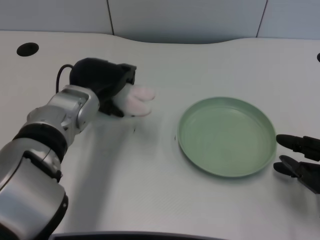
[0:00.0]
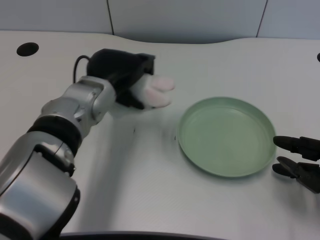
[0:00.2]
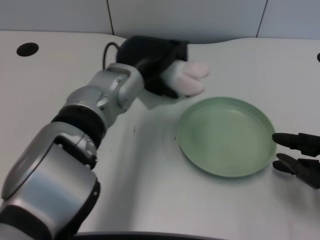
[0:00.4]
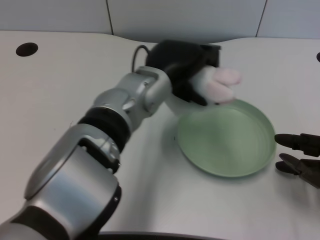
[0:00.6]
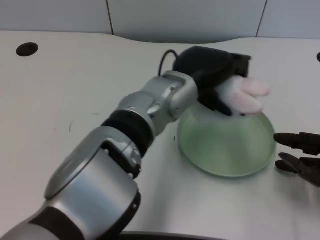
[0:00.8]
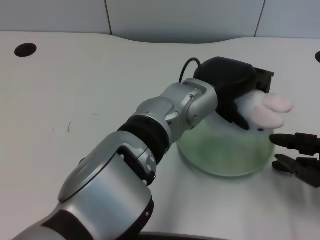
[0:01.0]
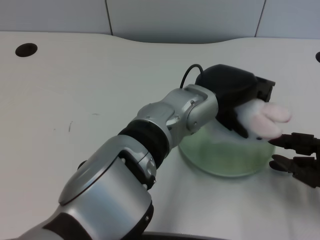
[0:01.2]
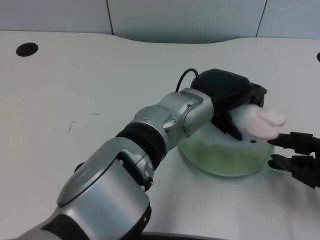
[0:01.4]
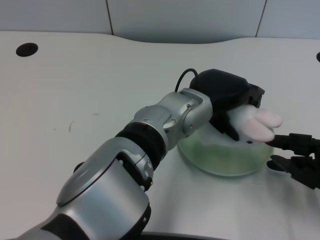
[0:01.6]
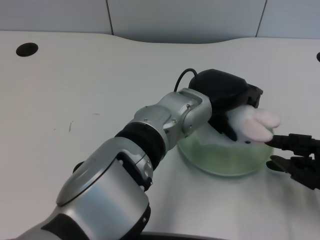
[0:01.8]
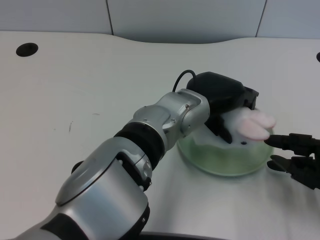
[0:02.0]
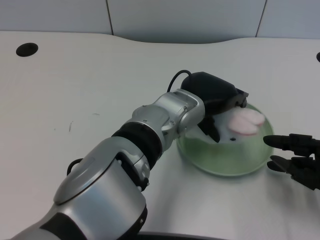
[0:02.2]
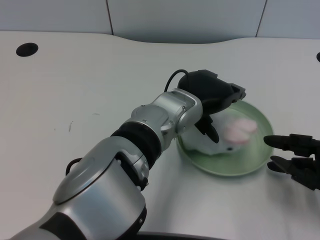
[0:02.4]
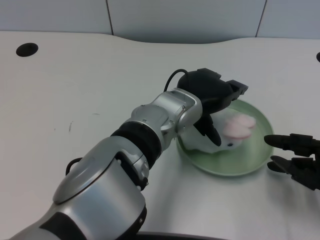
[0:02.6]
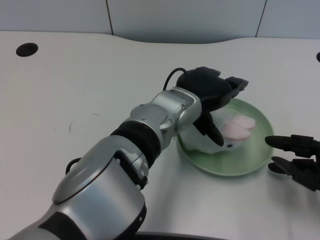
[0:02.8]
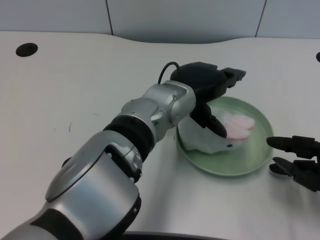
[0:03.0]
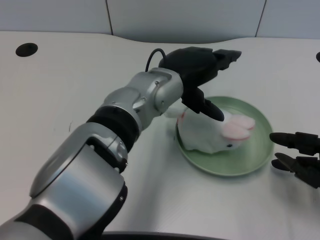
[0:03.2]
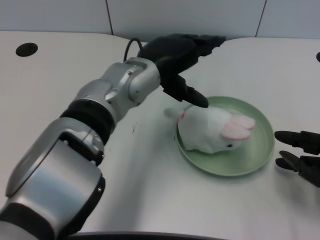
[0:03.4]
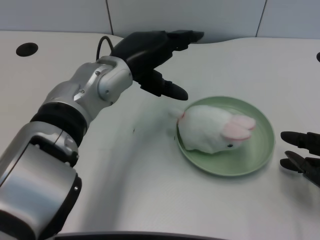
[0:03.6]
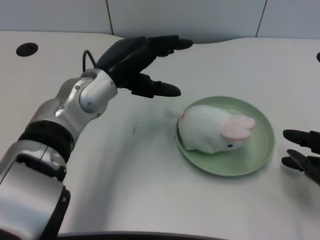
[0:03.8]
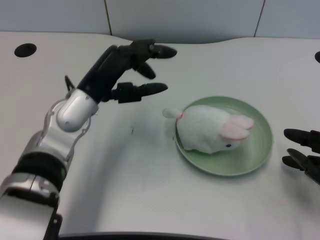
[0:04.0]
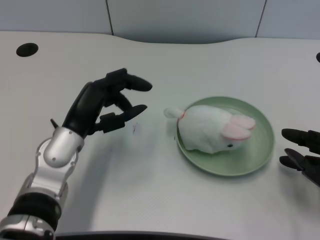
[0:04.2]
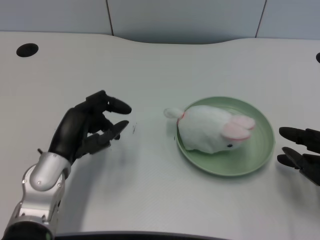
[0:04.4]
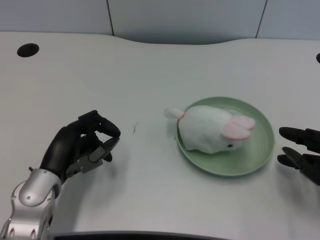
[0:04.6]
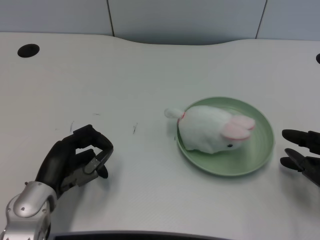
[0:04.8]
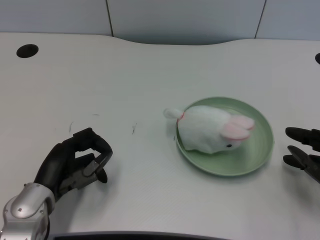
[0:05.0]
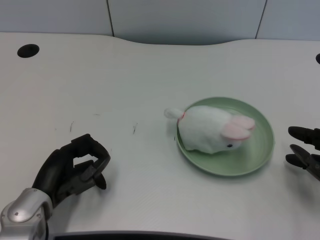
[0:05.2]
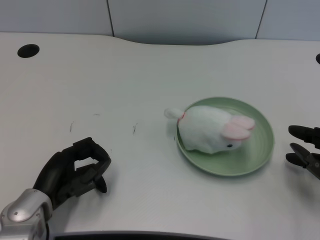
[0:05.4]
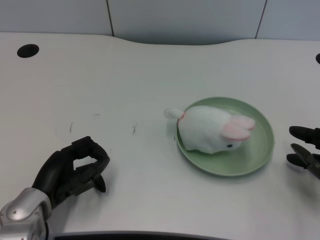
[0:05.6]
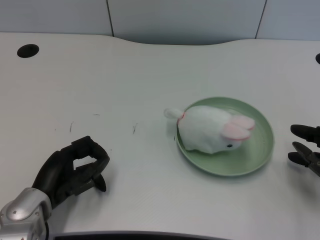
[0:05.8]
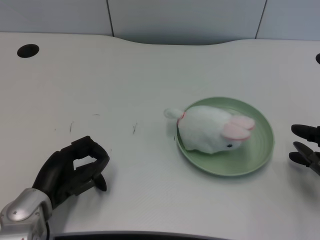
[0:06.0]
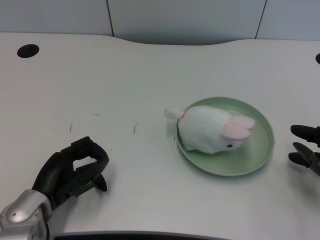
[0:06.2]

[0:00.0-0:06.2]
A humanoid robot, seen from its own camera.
Task of the whole recording: pick up the rabbit doll from the table and place it on the plate.
Step, 0:00.0 to 0:02.6: Place the rabbit doll into the plate with the left gripper.
0:00.0 to 0:01.6: The left hand heads to the right, covering approximately 15 cm.
0:01.6 to 0:03.2: The left hand changes place by some 5 cm.
0:03.2 to 0:04.6: The left hand is displaced to the left, downward and backward by some 25 cm.
0:04.6 to 0:06.2: The hands move only a little.

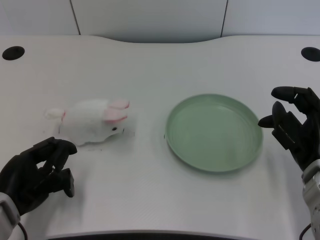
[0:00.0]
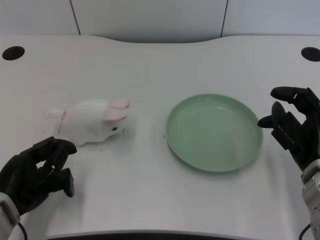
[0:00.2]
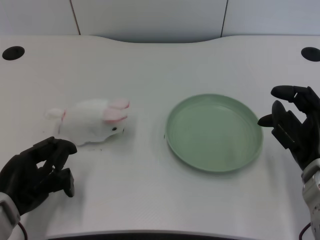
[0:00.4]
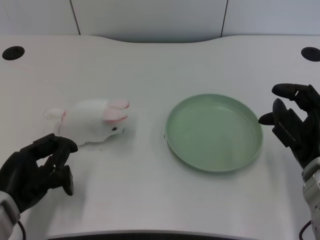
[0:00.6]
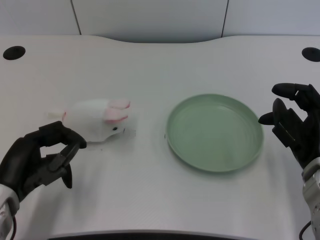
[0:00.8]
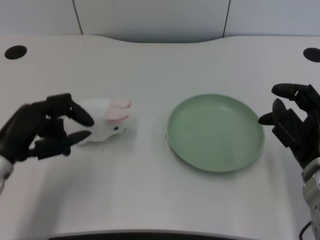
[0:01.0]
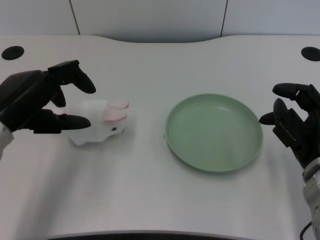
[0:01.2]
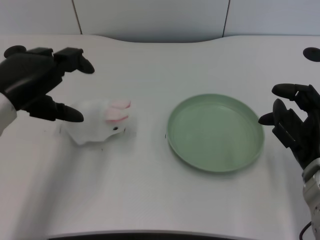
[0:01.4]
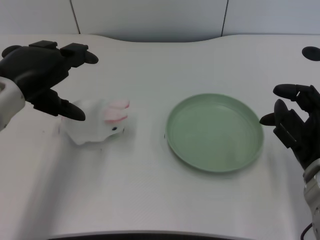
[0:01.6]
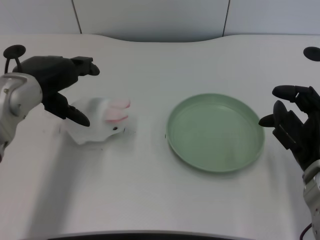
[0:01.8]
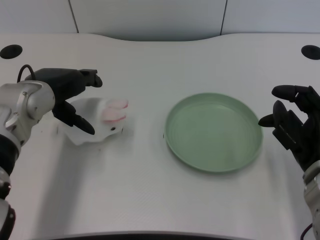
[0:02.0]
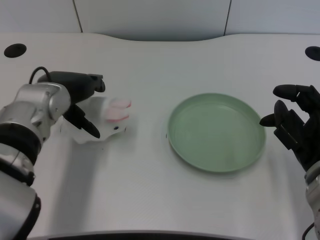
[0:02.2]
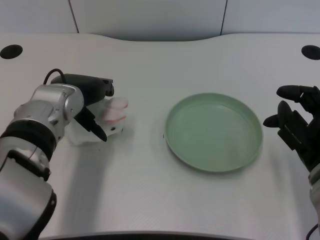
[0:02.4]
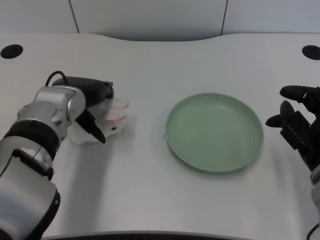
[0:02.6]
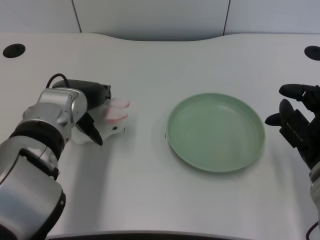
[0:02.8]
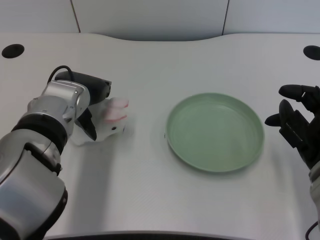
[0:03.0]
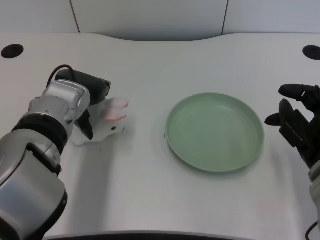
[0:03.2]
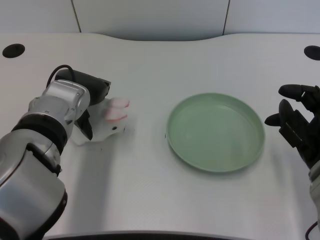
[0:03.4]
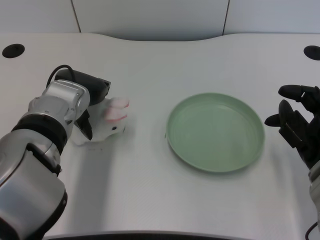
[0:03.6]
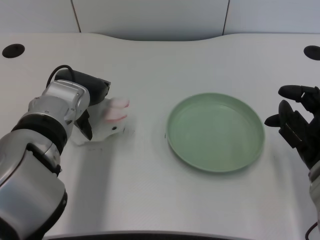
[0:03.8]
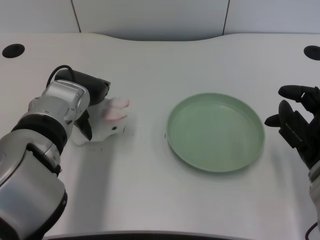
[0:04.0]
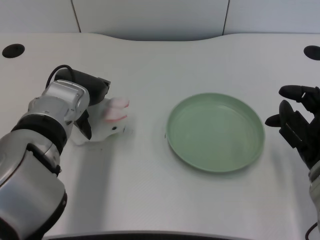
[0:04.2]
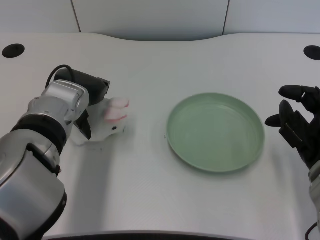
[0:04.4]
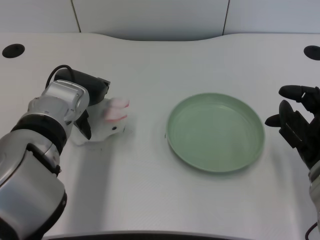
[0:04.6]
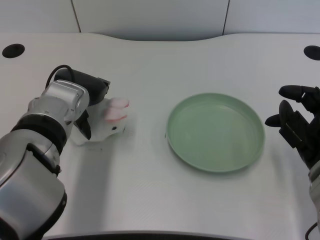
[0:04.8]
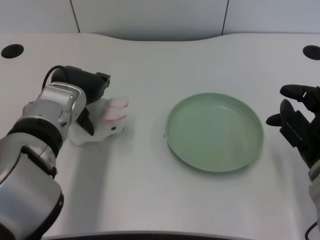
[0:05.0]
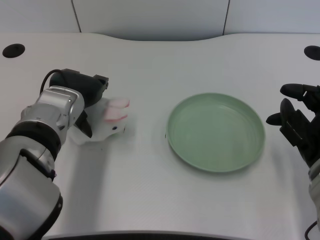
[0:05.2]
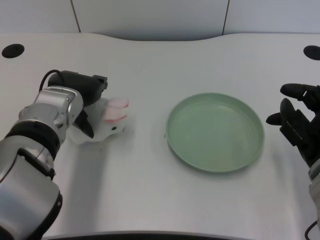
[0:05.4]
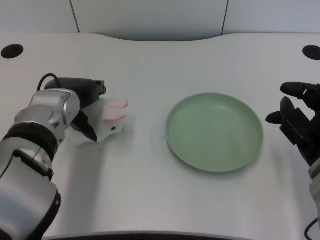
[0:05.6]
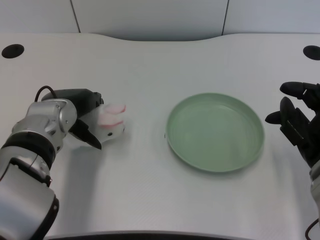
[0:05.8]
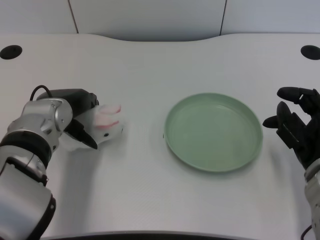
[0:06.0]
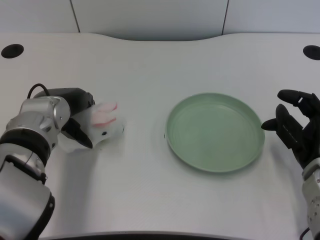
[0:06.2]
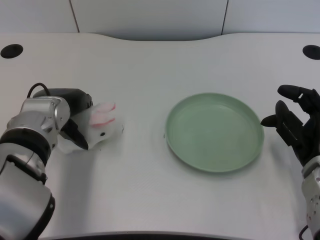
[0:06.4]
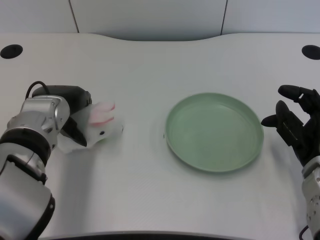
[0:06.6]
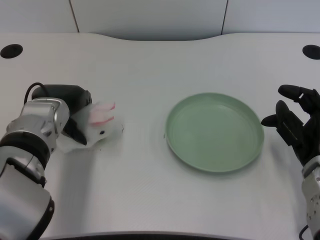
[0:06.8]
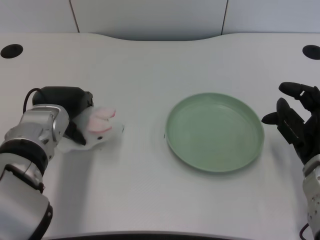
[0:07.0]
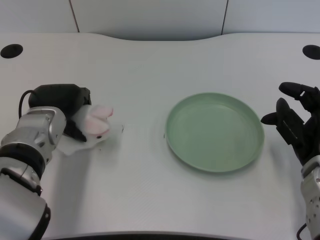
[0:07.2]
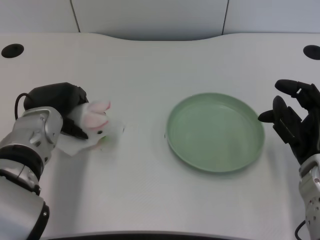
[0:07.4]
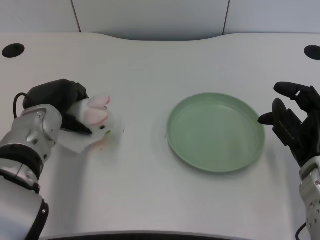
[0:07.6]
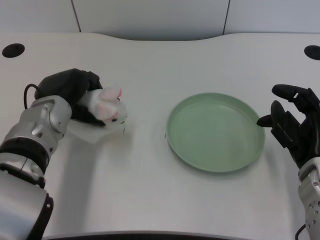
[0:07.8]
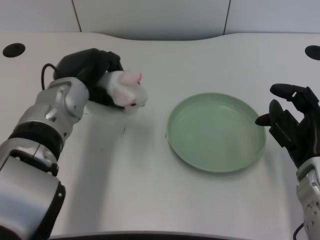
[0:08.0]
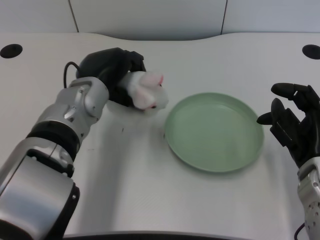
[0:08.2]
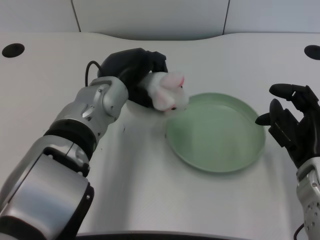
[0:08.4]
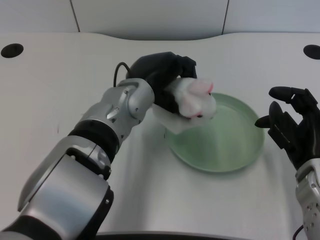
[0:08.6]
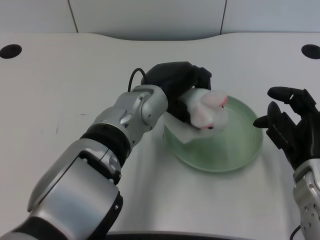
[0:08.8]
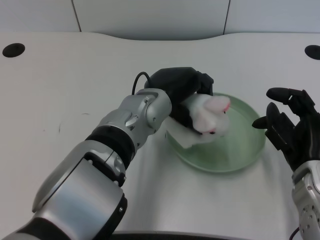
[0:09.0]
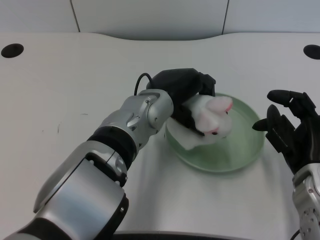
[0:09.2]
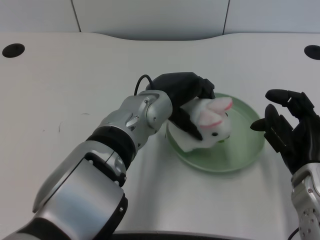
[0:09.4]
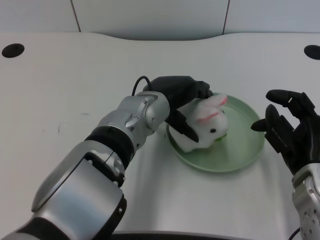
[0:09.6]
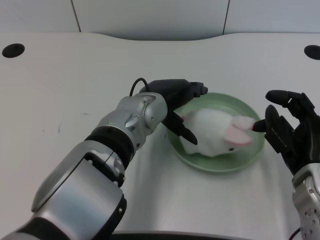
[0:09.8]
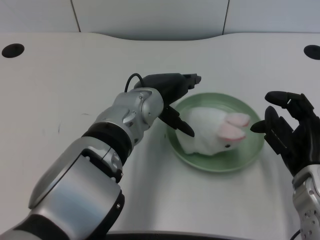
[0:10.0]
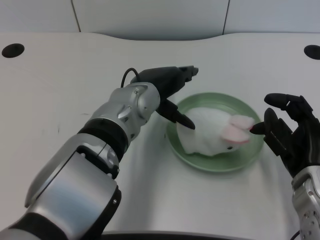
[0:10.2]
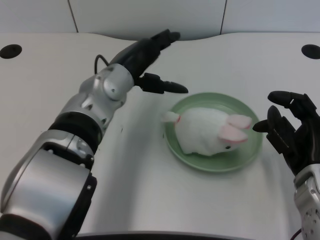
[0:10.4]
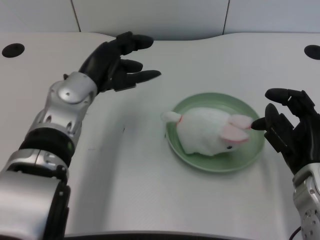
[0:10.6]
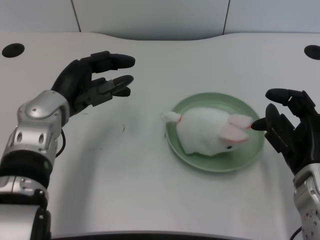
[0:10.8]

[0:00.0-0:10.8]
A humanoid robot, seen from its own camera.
Task of the whole recording: pick up the rabbit doll from the table and place it on the plate.
Step, 0:00.8 to 0:07.6: Grasp the rabbit doll with the left gripper.
Step, 0:08.0 to 0:10.0: Place the rabbit doll into the plate with the left gripper.
0:01.6 to 0:03.0: The left hand travels to the right by roughly 10 cm.
0:03.0 to 0:04.6: The hands move only a little.
0:07.8 to 0:09.2: The left hand moves to the right, roughly 15 cm.
0:09.2 to 0:10.8: The left hand goes roughly 15 cm to the left.

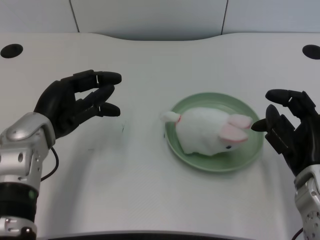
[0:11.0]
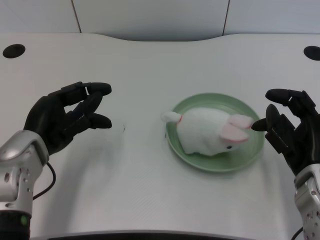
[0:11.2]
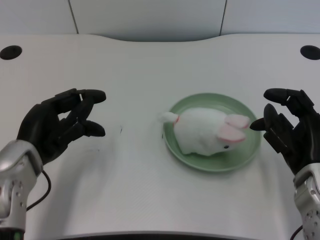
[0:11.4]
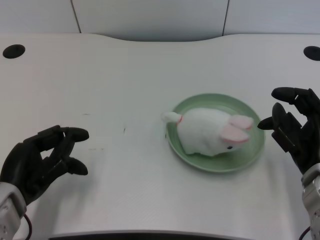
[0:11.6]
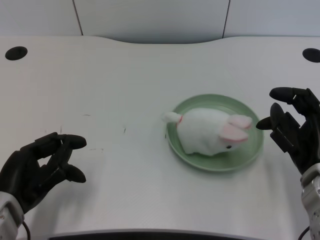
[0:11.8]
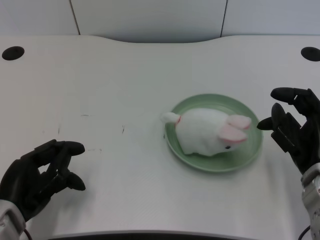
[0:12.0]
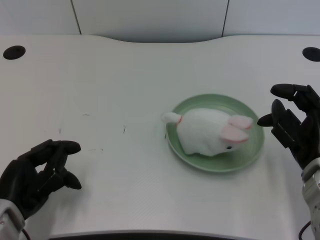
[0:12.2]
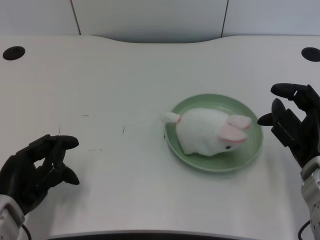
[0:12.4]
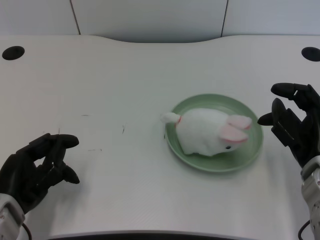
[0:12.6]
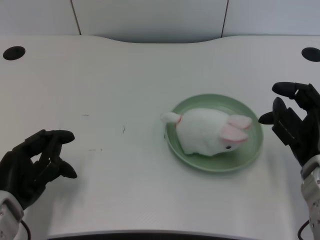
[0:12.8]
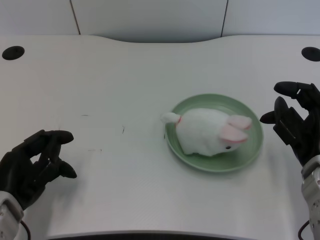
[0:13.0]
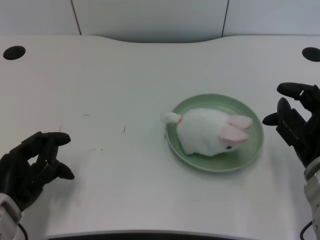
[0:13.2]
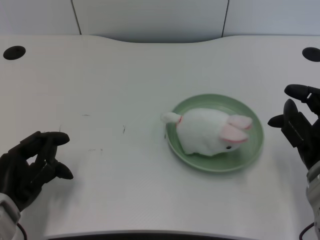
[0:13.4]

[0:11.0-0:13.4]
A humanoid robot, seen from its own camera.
Task of the whole recording: pick up the rabbit doll from the table and place it on the plate.
0:11.0 to 0:12.2: The left hand moves backward and downward, about 10 cm.
0:12.2 to 0:13.4: The hands move only a little.

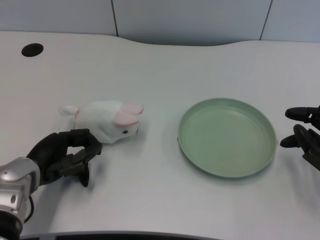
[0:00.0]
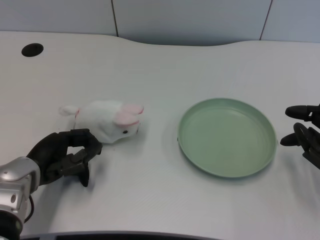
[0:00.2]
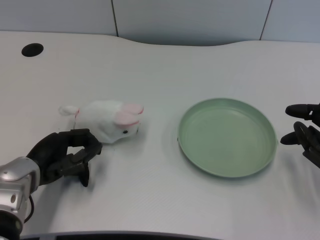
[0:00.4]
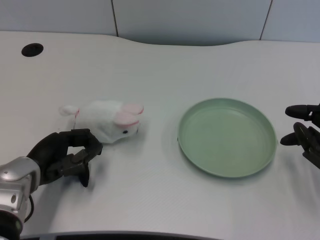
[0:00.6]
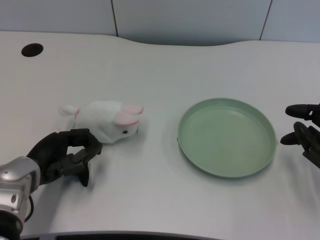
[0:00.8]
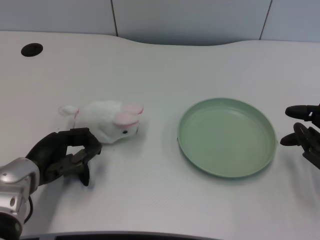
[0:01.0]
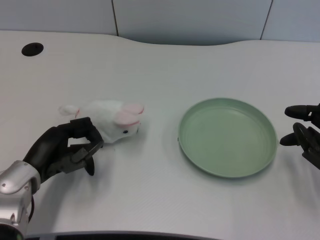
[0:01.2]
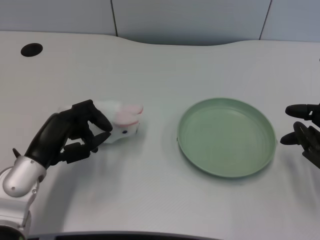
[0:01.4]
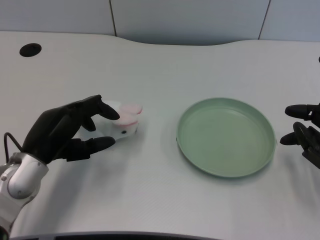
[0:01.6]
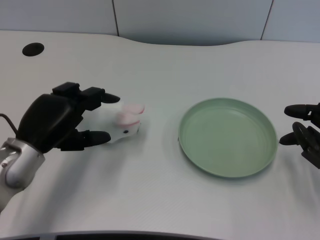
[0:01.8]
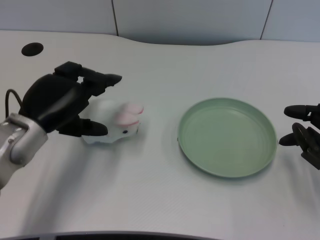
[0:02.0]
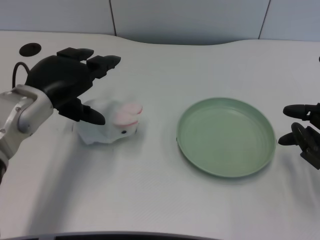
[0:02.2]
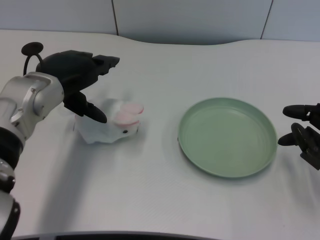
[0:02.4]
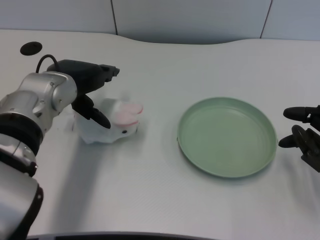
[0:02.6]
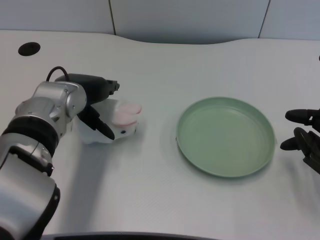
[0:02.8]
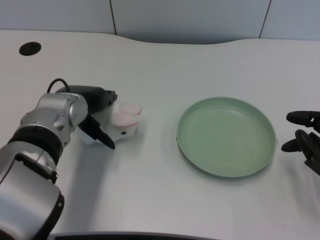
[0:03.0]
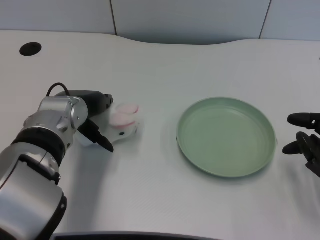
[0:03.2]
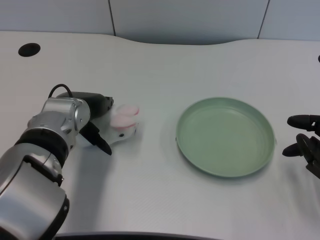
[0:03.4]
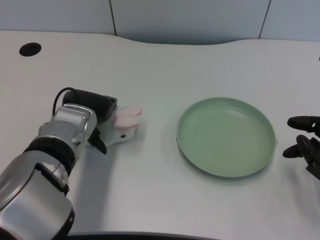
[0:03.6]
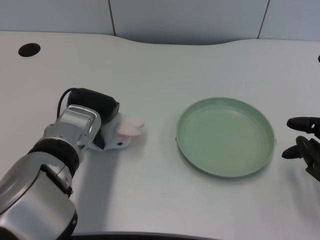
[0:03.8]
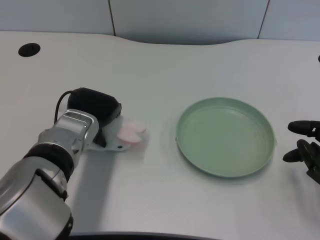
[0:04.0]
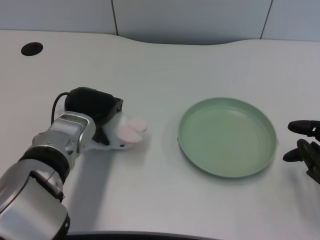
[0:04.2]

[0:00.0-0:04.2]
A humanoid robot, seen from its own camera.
Task of the whole recording: pick up the rabbit doll from the table and place it on the plate.
0:01.4 to 0:02.8: The left hand goes about 15 cm forward, upward and to the right.
0:02.8 to 0:04.2: The left hand goes approximately 5 cm downward.
